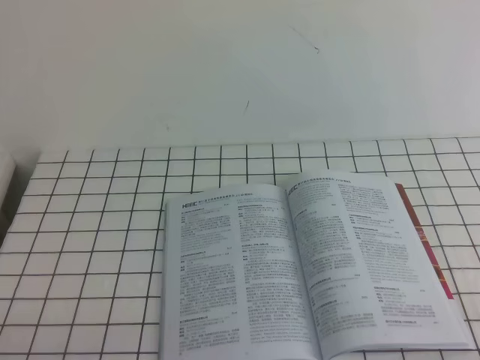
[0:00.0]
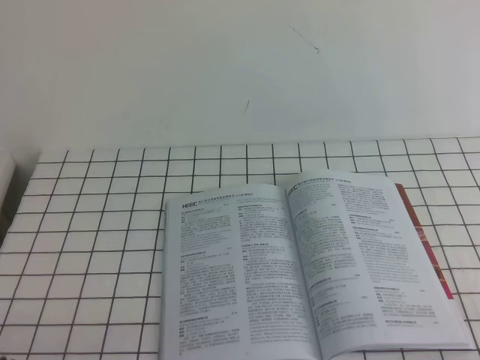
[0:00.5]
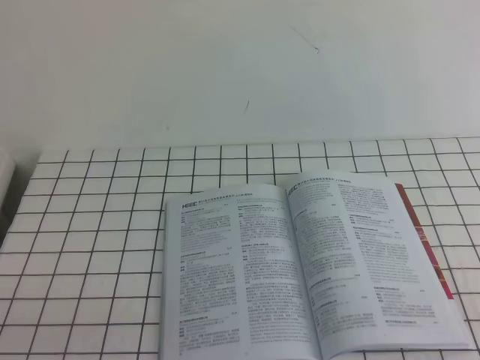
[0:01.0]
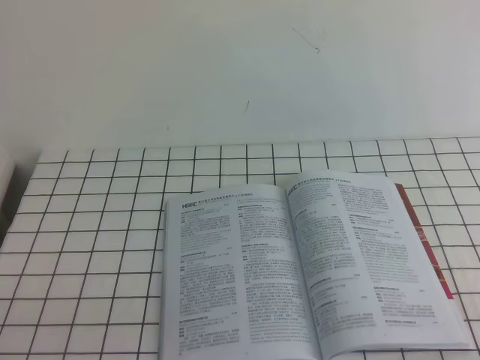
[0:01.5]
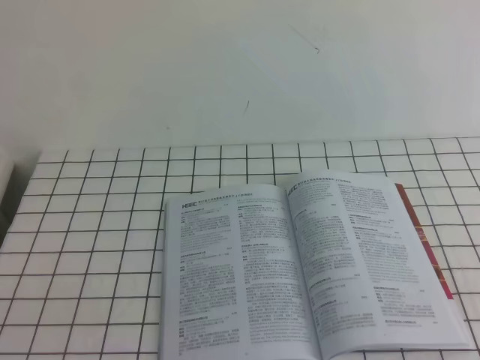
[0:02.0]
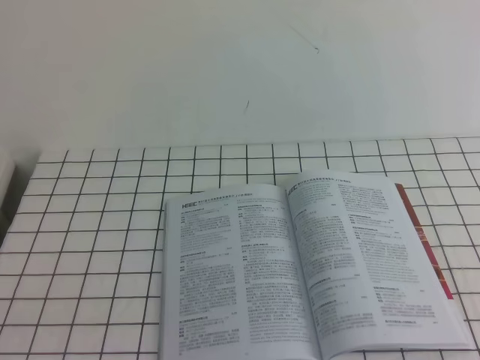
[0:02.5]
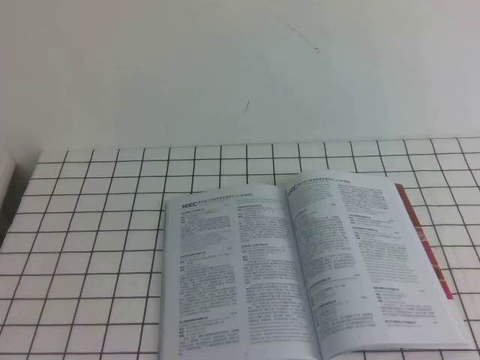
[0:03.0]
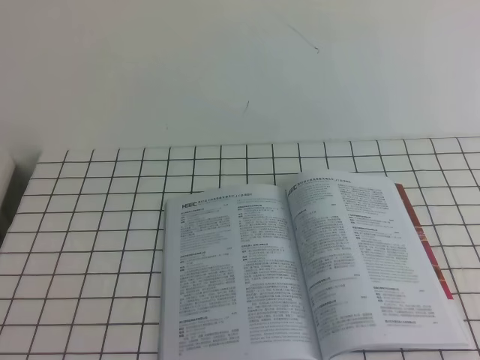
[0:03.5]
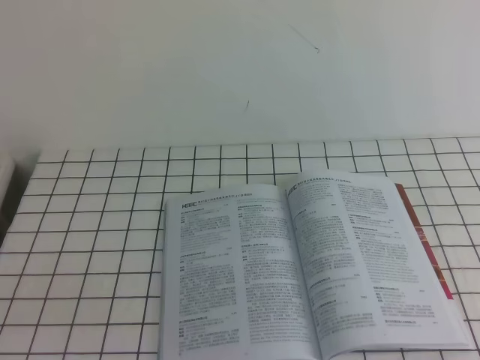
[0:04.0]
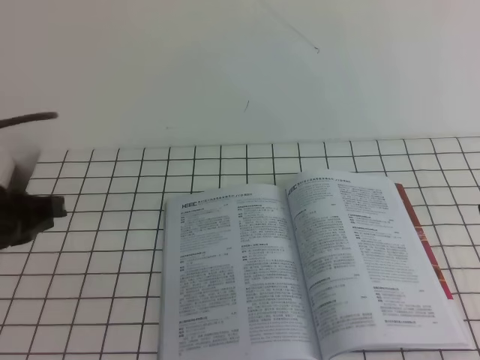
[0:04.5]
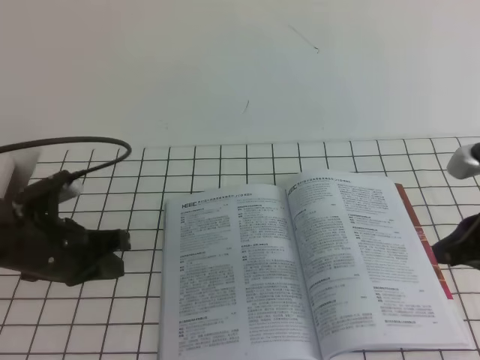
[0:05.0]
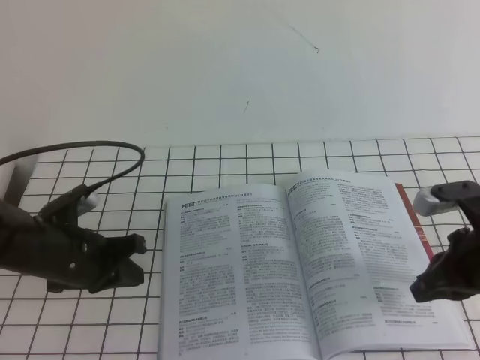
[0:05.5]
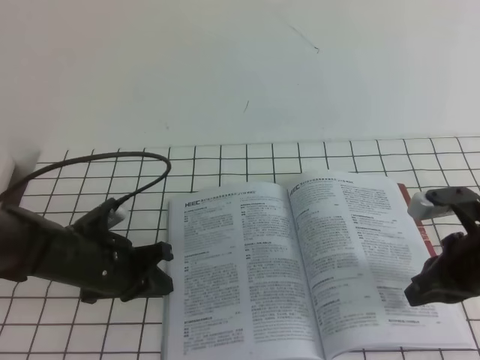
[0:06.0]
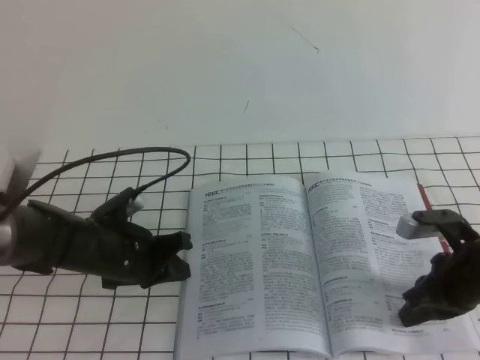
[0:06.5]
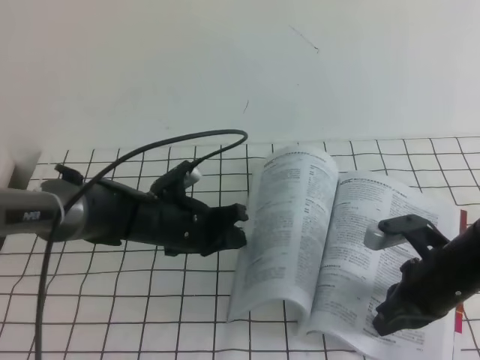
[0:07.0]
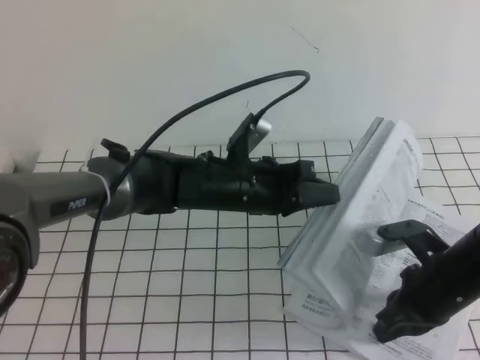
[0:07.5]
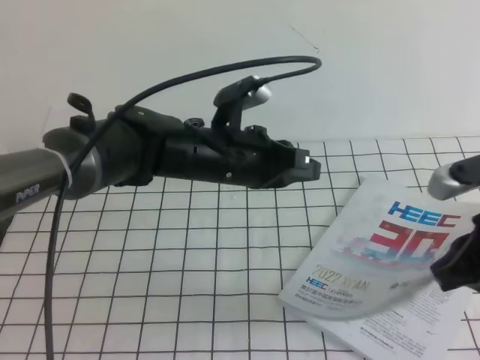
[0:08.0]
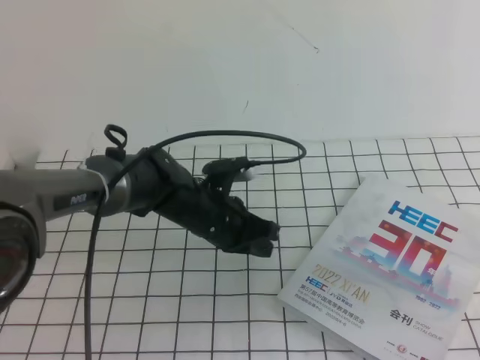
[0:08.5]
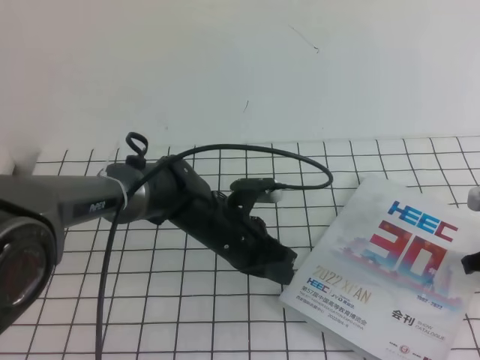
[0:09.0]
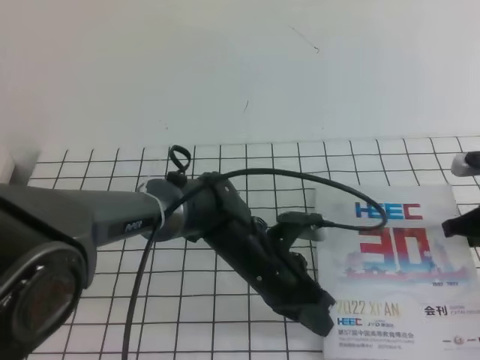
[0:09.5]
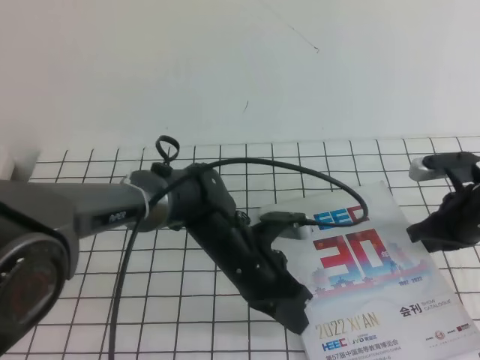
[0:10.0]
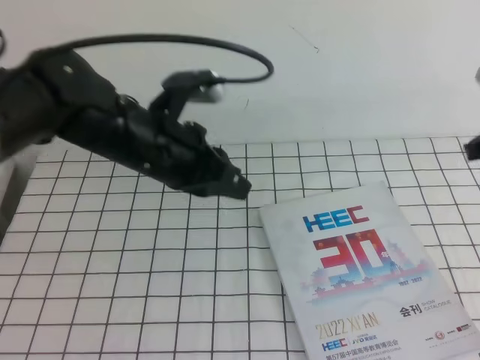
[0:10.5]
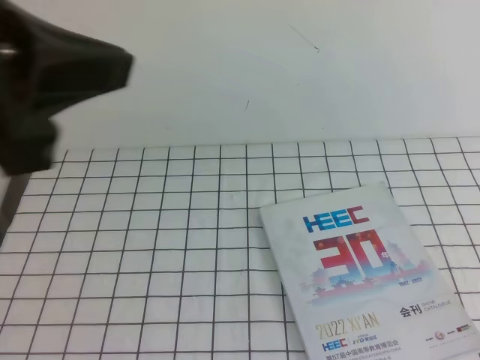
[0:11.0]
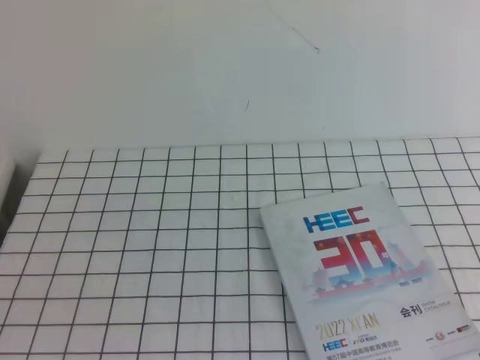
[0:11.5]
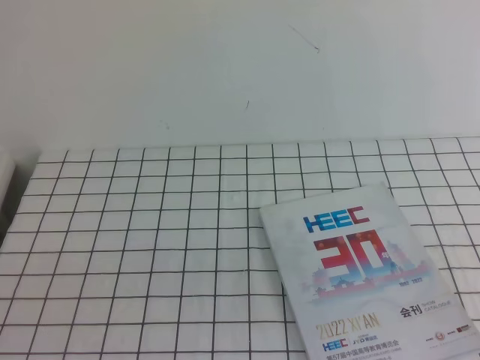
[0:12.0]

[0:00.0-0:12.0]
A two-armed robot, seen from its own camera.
Task of the whole recording: on the white tablecloth, hold the book with one hand and close it with the other.
0:04.0 to 0:06.0: The left gripper heads downward and forward, covering some 30 cm. Meanwhile the right gripper moves downward and forward, some 20 cm.
0:06.0 to 0:08.0: The left gripper moves to the right and upward, some 20 cm; the right gripper moves upward, some 10 cm.
0:08.0 to 0:10.0: The right gripper moves forward and downward, about 15 cm; the left gripper shifts approximately 10 cm downward.
0:10.0 to 0:12.0: The left gripper heads backward, to the left and upward, covering roughly 40 cm, while the right gripper shifts about 35 cm backward and upward.
